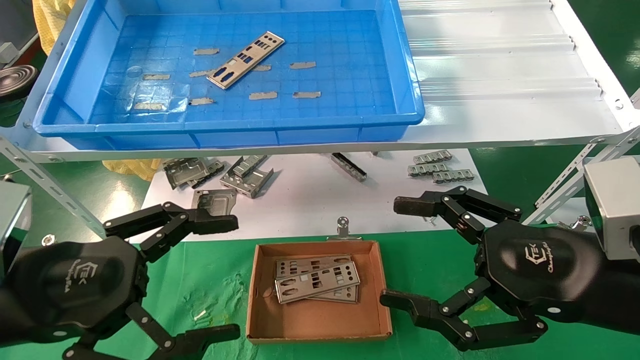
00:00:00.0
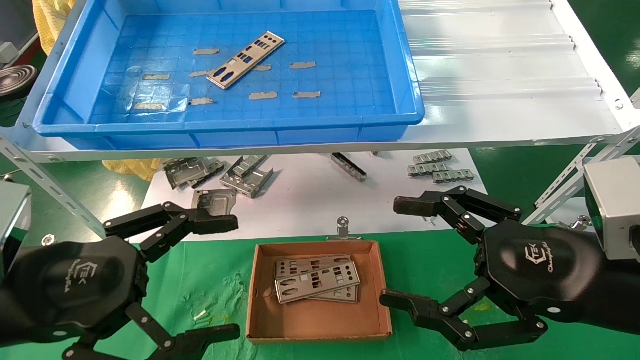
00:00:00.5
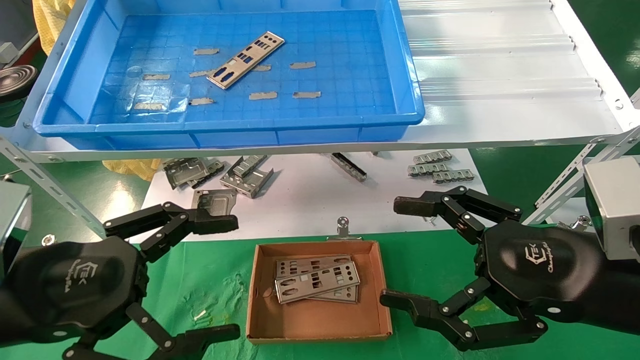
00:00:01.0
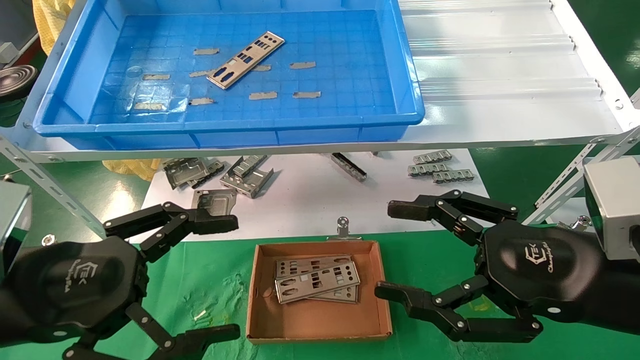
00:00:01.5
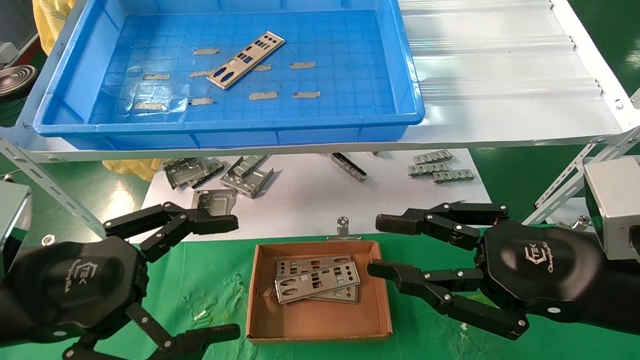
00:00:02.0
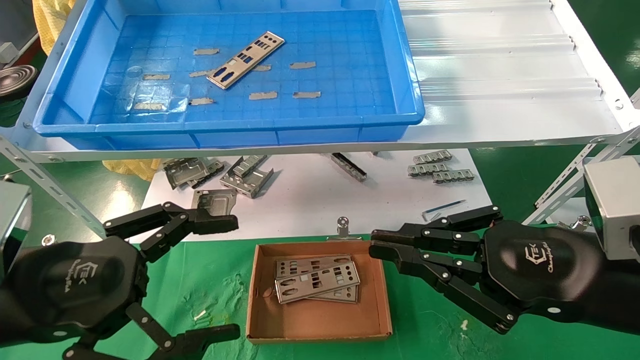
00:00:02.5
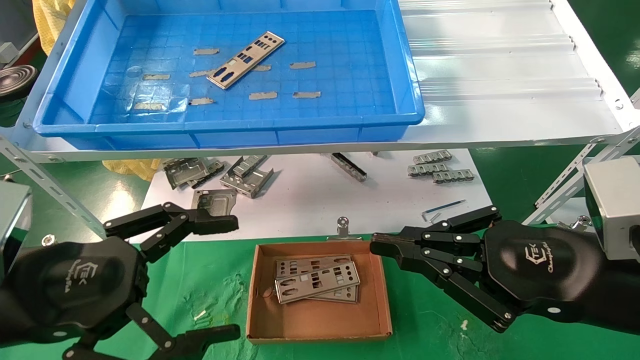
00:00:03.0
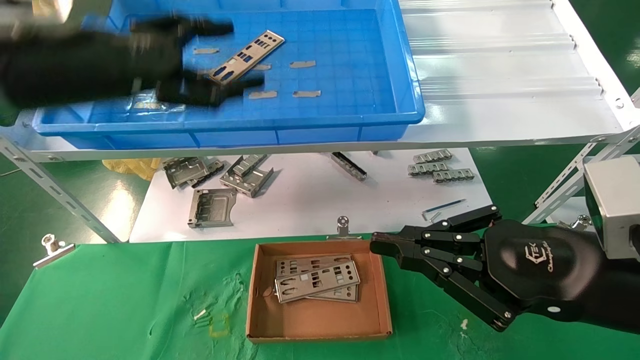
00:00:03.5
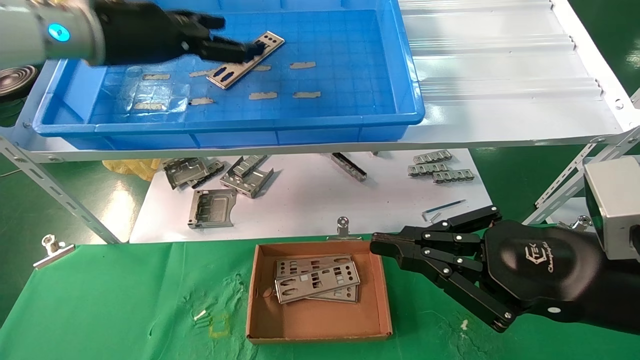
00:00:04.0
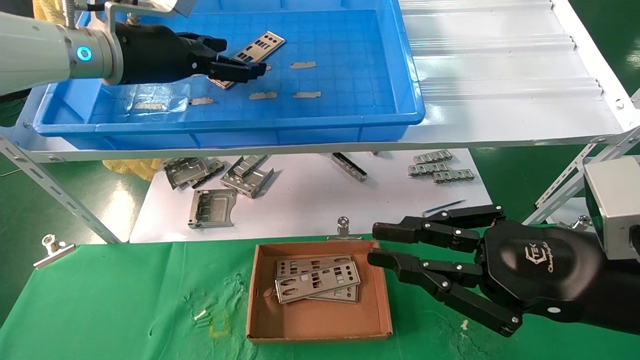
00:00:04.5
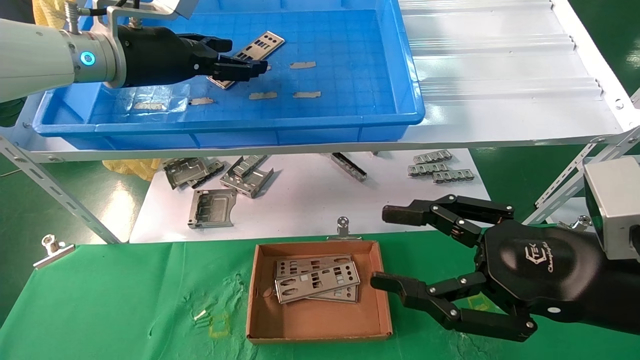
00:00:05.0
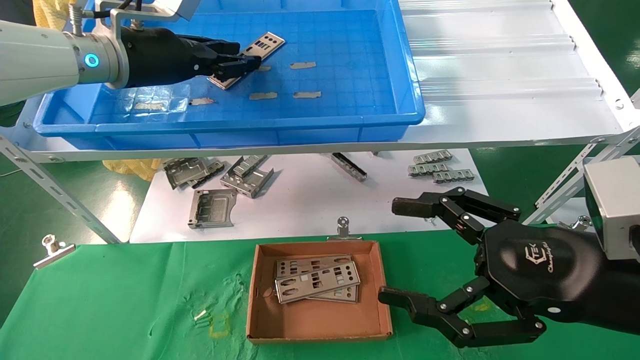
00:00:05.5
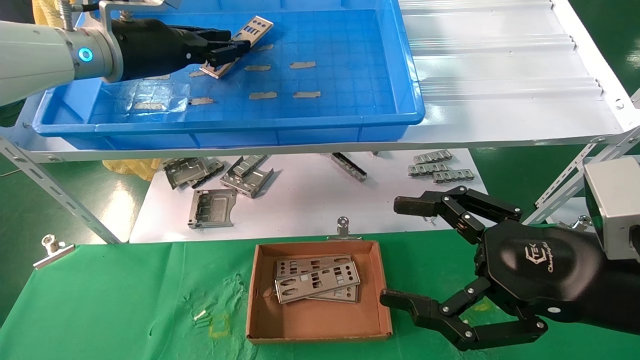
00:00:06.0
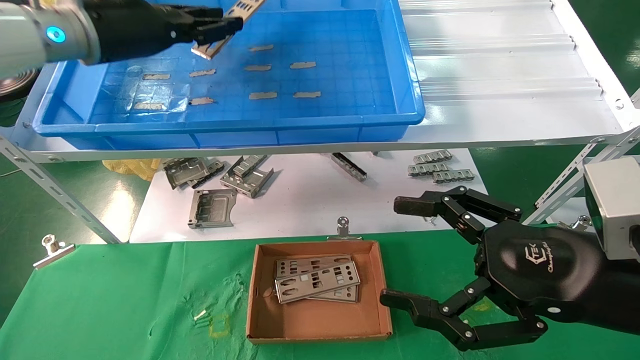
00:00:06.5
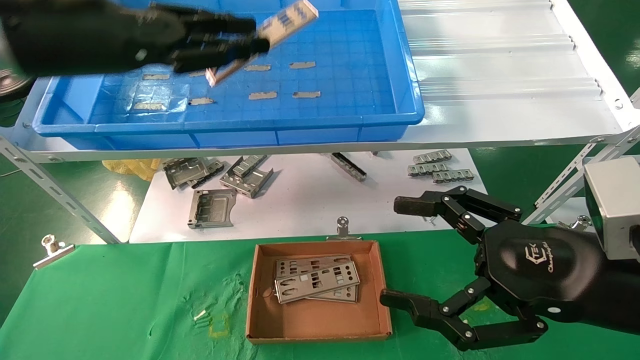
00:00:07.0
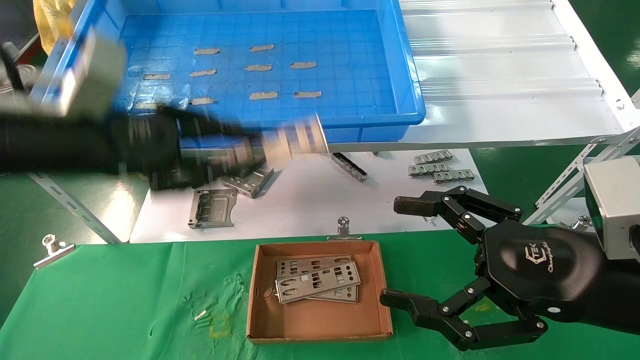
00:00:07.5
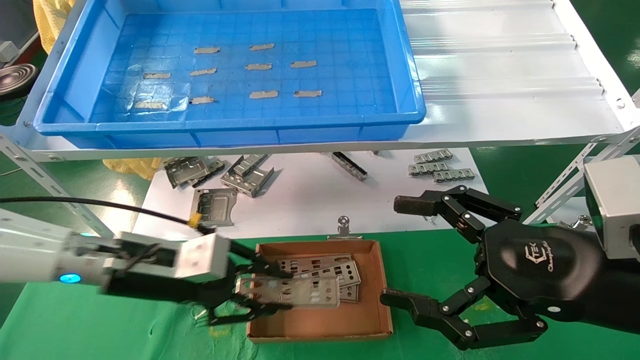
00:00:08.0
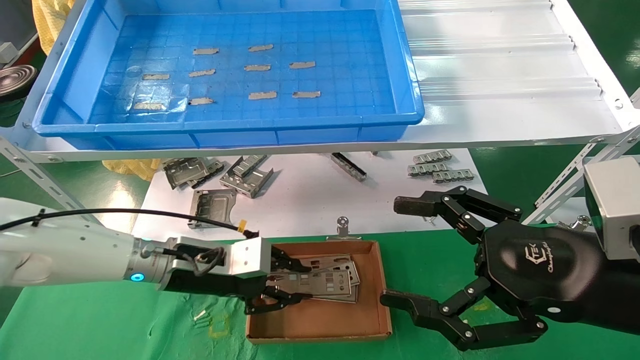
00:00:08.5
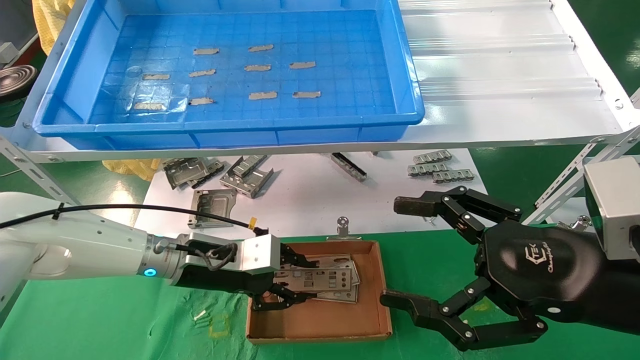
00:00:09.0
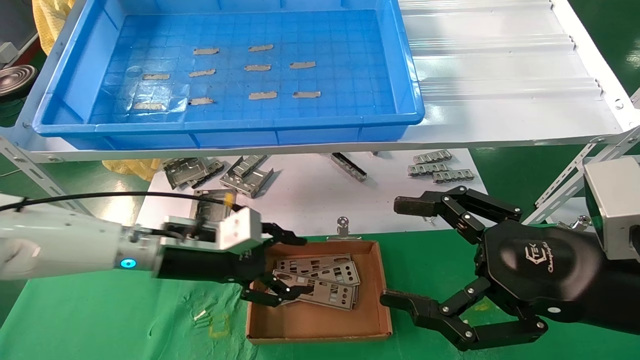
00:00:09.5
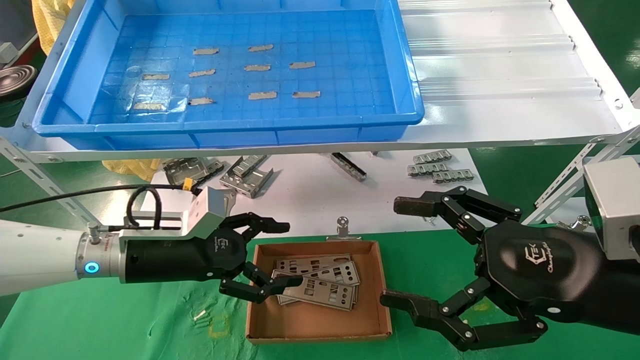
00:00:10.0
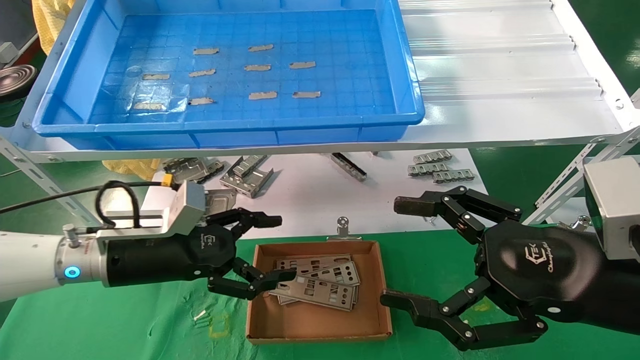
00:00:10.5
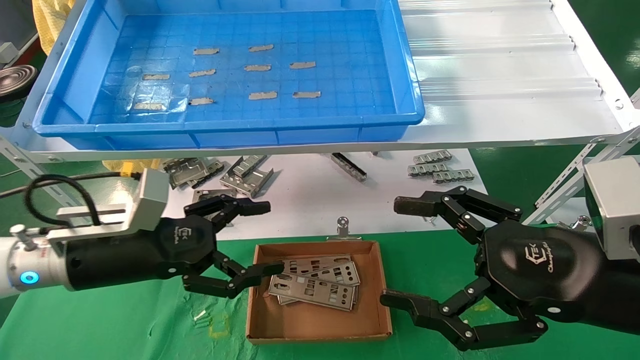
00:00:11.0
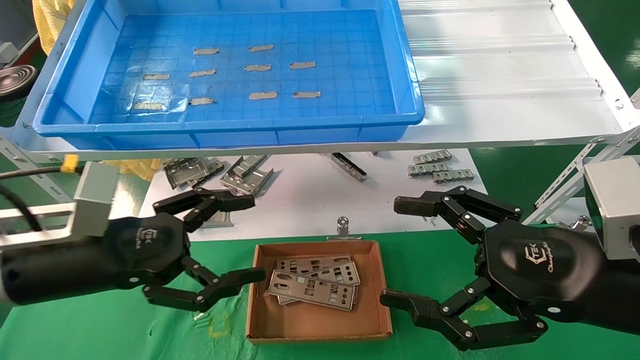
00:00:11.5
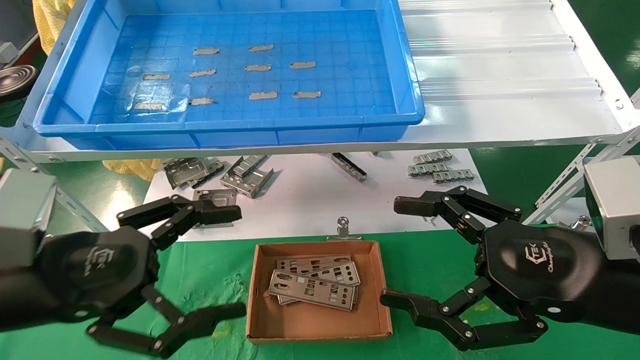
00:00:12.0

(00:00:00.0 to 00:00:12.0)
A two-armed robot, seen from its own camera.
Task of the whole recording: pick up the parts on the tray and put them in the cardboard box.
Step, 00:00:03.5 - 00:00:05.5: Pick up the IO bracket from the container box.
Step, 00:00:06.0 - 00:00:09.0: Place the IO bracket into the ingredient slot.
00:00:00.0 - 00:00:02.0: The right gripper closes up.
00:00:02.0 - 00:00:04.0: The left gripper shifts some 30 cm forward and upward. Meanwhile the right gripper closes.
00:00:04.0 - 00:00:06.0: The left gripper closes up, while the right gripper opens up.
00:00:06.0 - 00:00:08.0: The left gripper is displaced downward by approximately 25 cm.
00:00:08.0 - 00:00:10.0: The left gripper opens its fingers.
00:00:10.0 - 00:00:12.0: The left gripper is displaced backward and upward by roughly 15 cm.

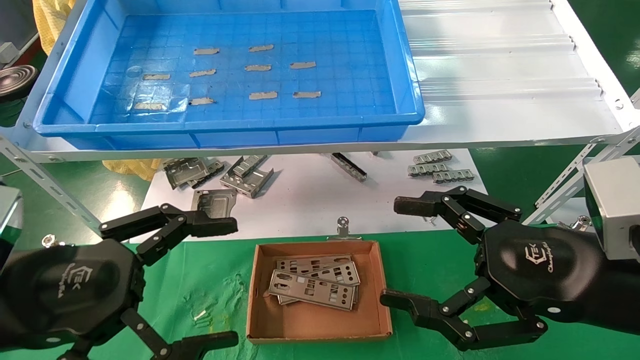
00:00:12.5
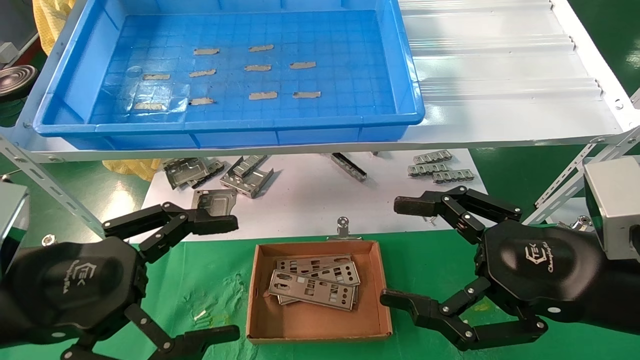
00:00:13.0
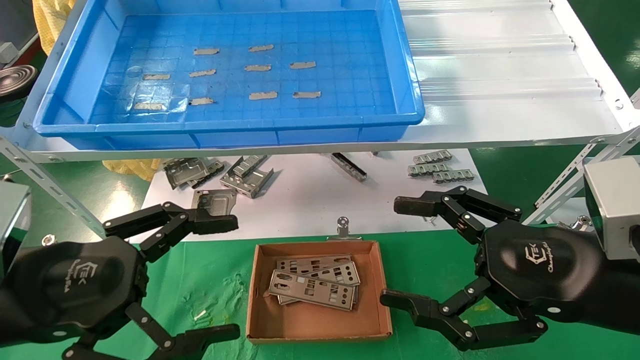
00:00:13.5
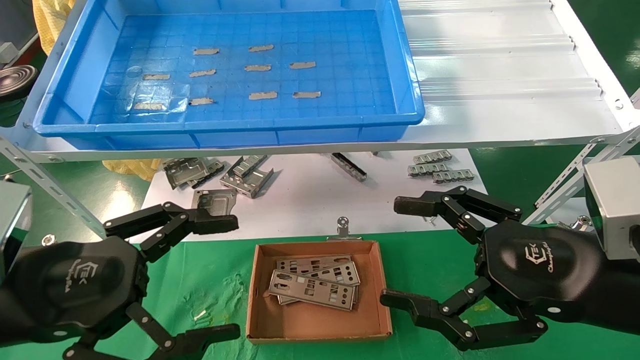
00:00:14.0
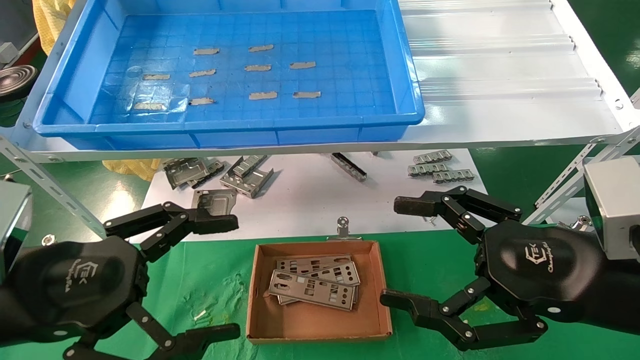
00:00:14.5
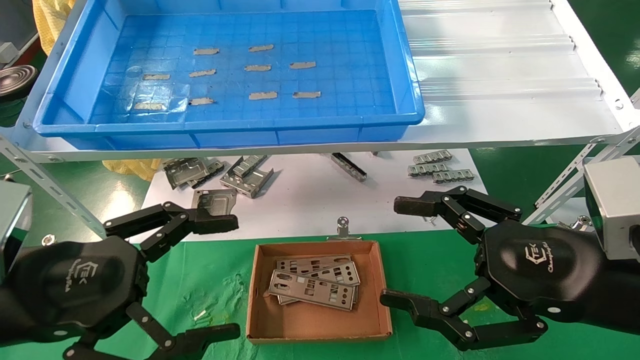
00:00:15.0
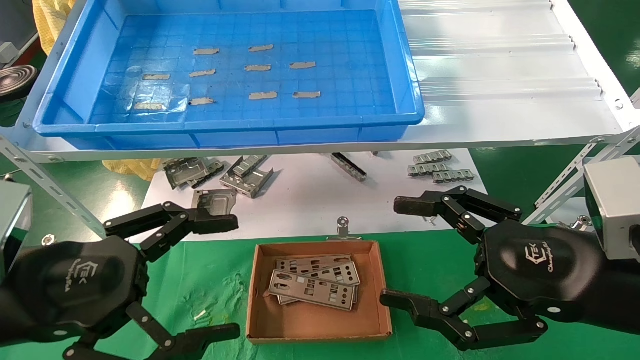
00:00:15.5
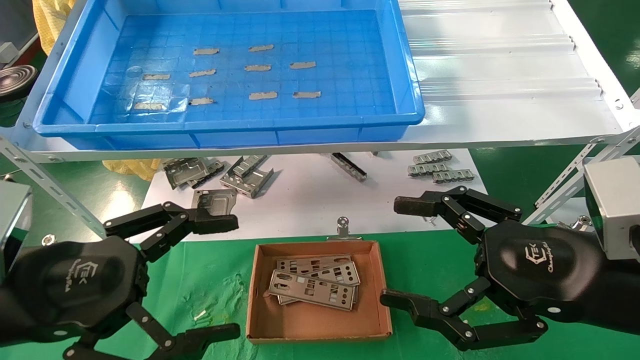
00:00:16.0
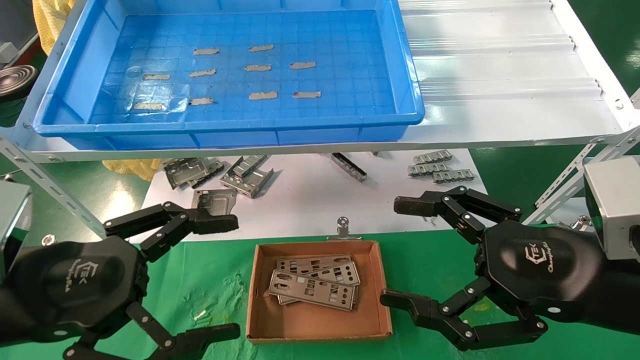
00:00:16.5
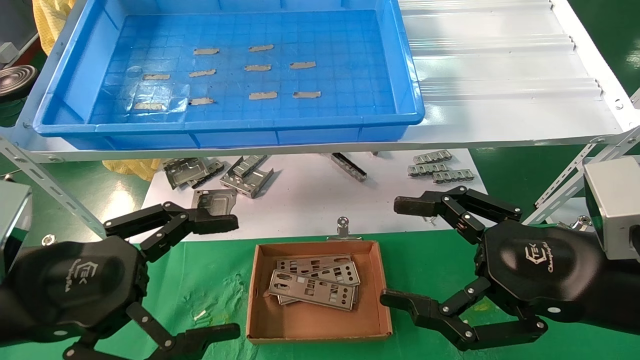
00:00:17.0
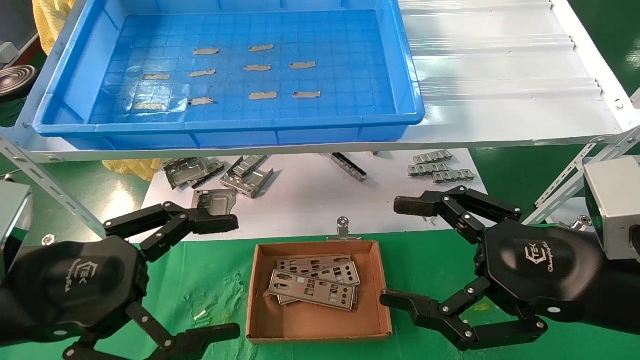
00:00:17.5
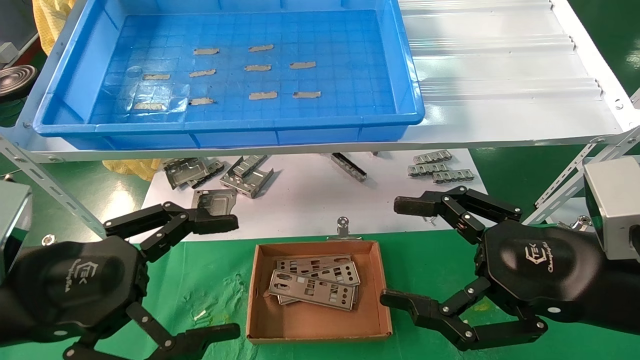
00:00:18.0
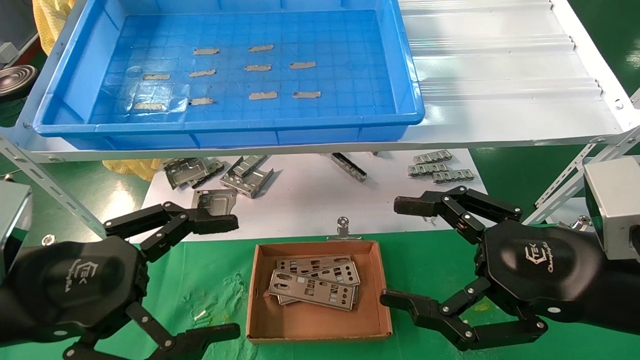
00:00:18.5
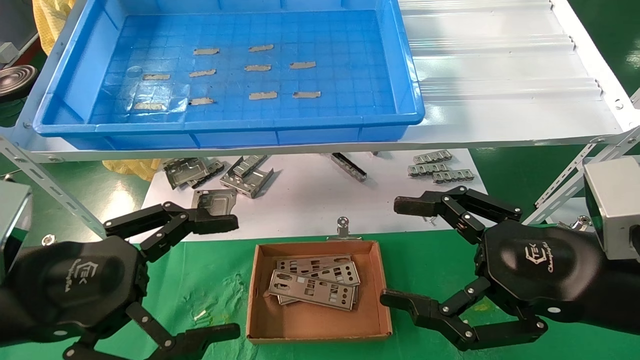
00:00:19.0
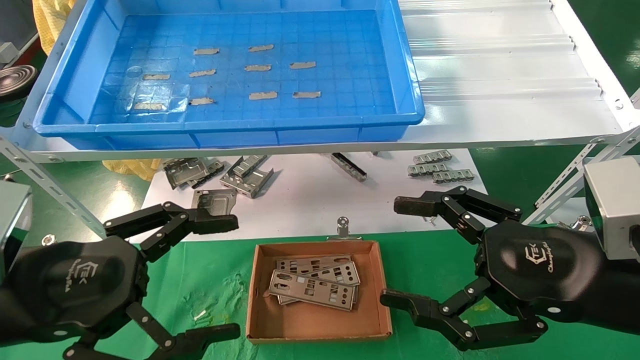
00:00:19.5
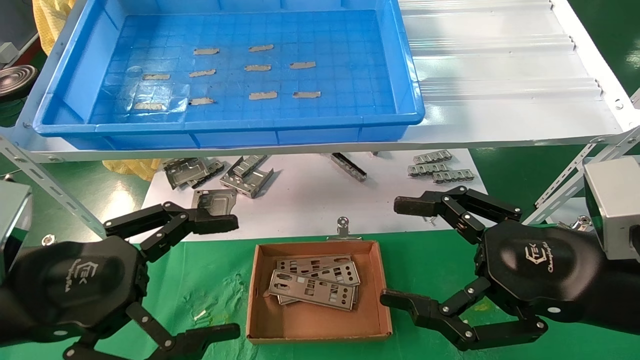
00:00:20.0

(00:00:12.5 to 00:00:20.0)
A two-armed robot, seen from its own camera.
Task of the whole recording: pick up the parts on the tray and put them in the cardboard box.
00:00:12.5 - 00:00:20.0: Both grippers stay about where they are.
